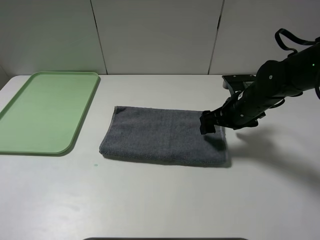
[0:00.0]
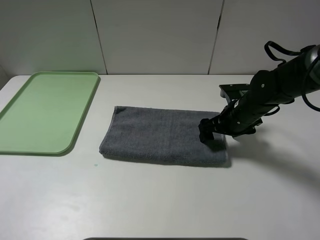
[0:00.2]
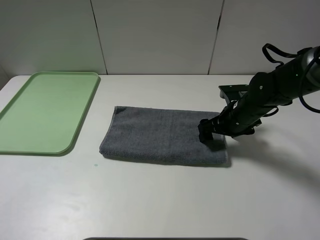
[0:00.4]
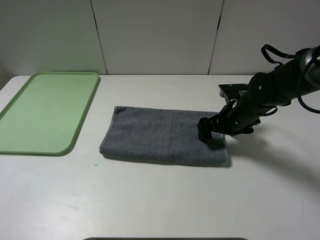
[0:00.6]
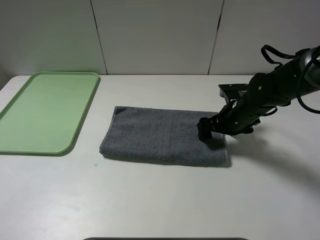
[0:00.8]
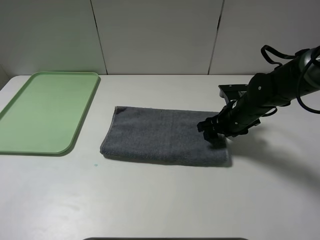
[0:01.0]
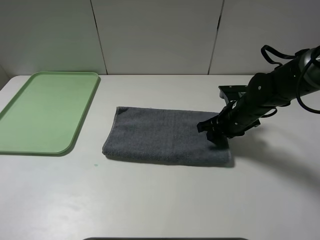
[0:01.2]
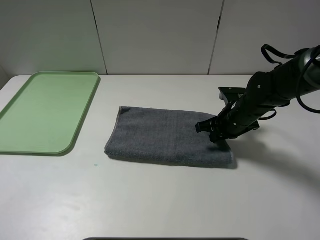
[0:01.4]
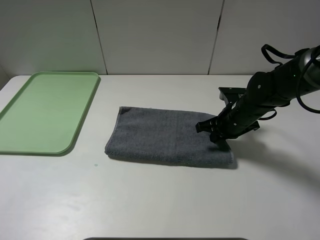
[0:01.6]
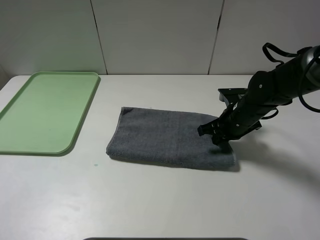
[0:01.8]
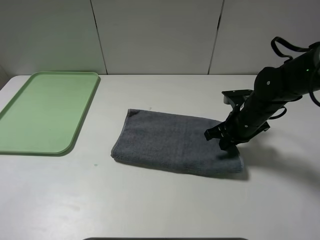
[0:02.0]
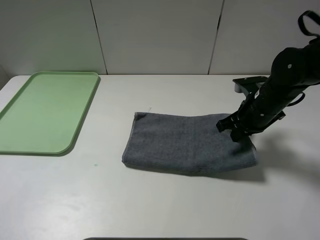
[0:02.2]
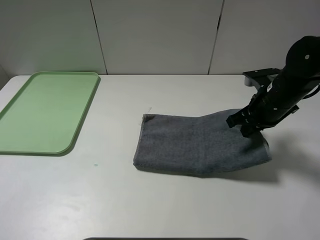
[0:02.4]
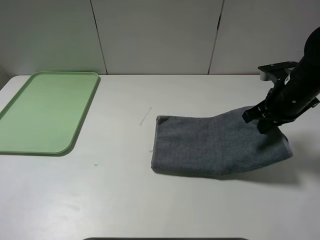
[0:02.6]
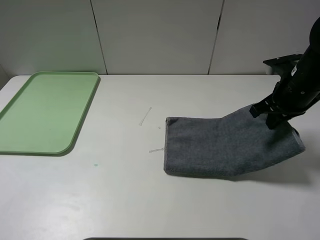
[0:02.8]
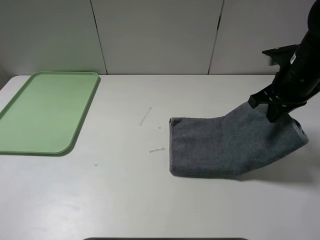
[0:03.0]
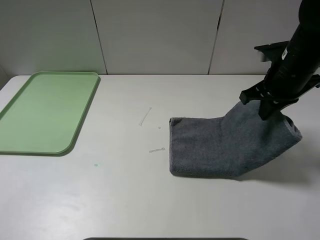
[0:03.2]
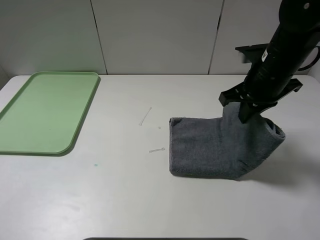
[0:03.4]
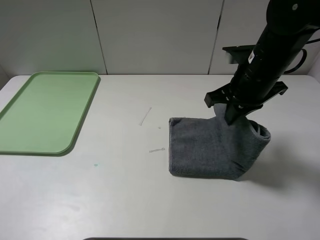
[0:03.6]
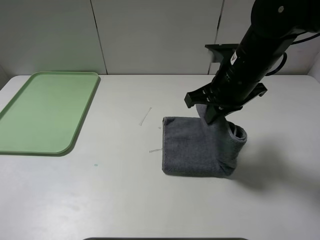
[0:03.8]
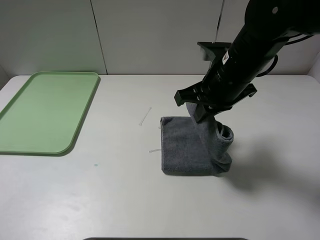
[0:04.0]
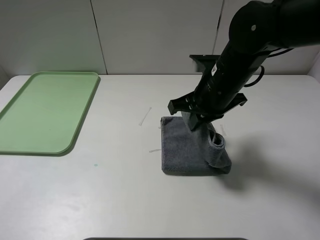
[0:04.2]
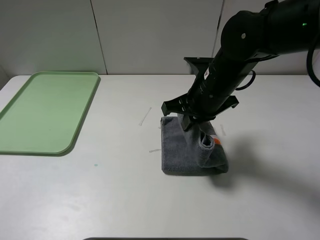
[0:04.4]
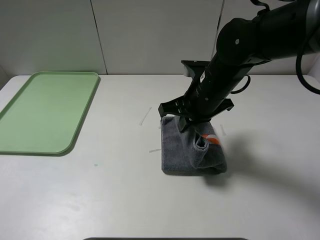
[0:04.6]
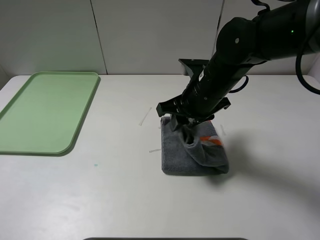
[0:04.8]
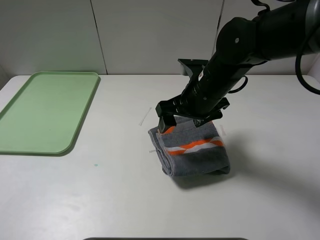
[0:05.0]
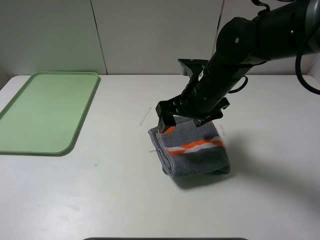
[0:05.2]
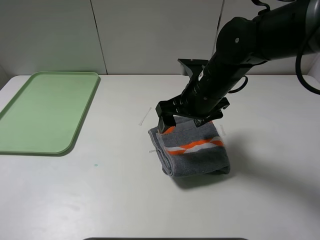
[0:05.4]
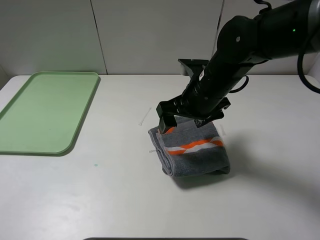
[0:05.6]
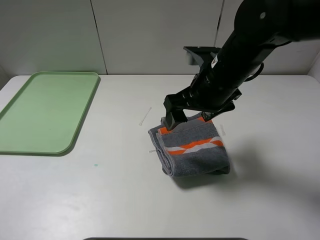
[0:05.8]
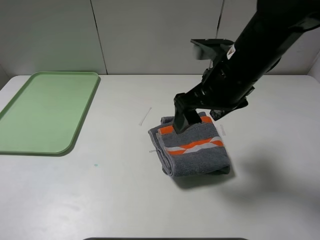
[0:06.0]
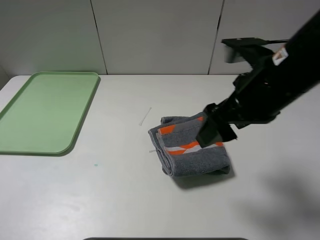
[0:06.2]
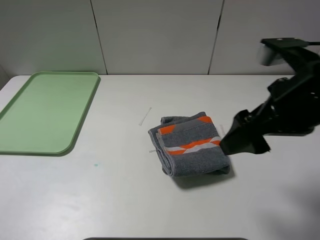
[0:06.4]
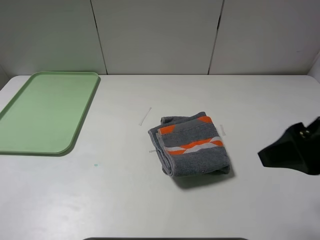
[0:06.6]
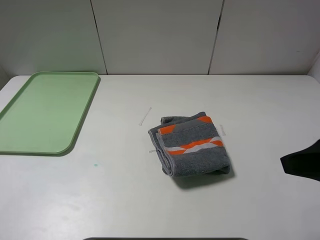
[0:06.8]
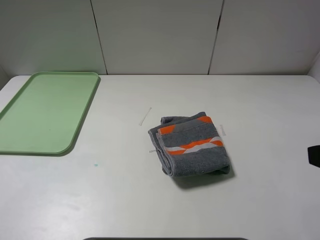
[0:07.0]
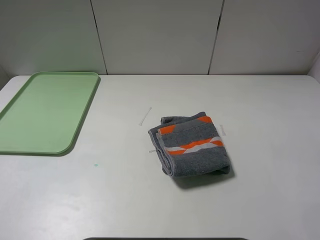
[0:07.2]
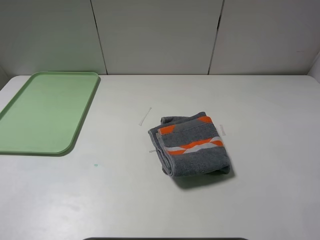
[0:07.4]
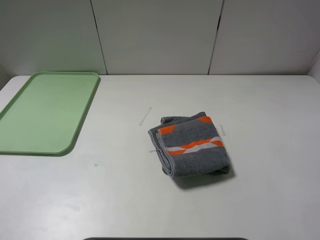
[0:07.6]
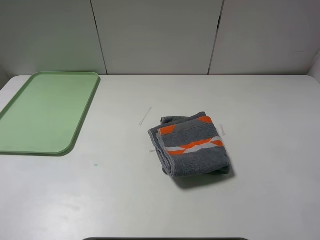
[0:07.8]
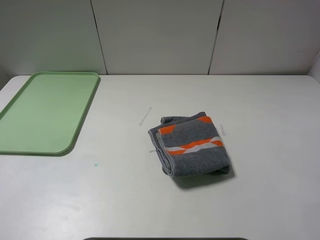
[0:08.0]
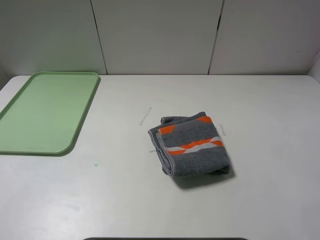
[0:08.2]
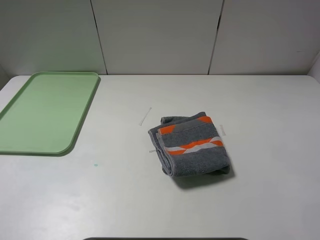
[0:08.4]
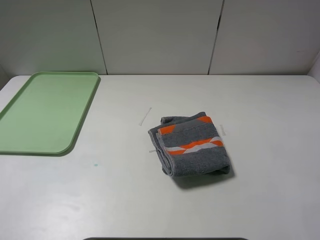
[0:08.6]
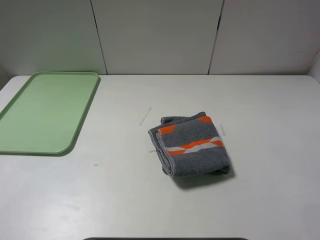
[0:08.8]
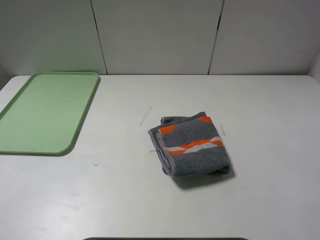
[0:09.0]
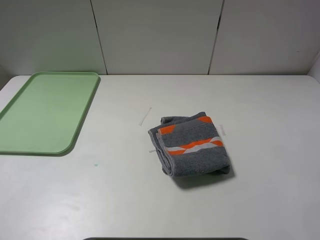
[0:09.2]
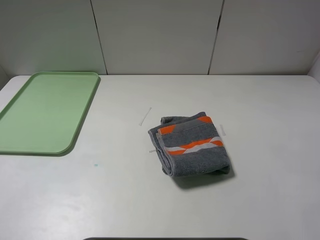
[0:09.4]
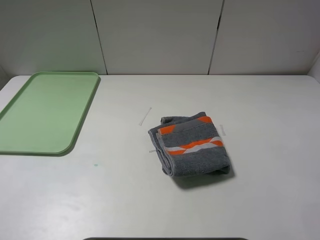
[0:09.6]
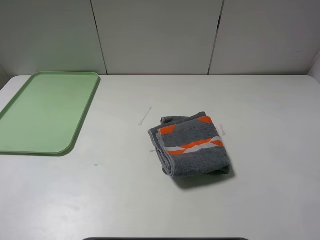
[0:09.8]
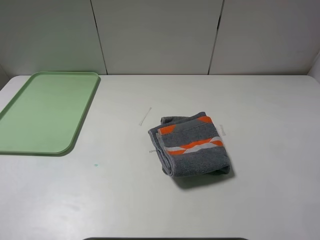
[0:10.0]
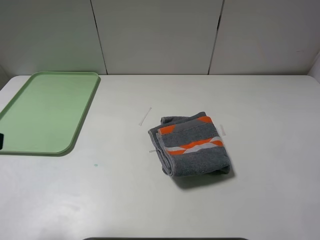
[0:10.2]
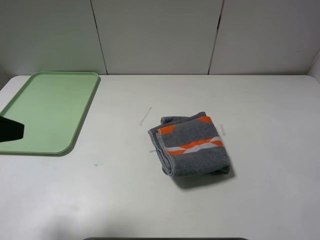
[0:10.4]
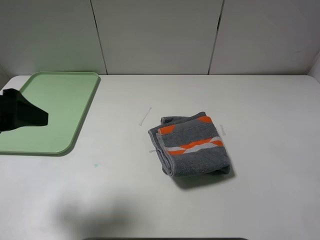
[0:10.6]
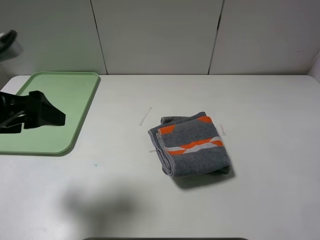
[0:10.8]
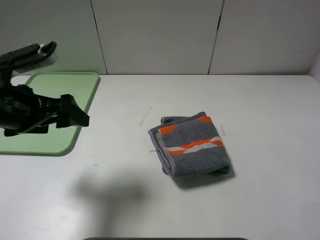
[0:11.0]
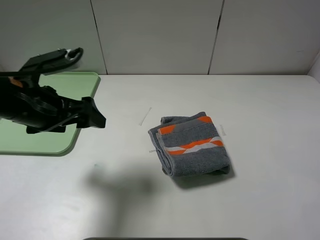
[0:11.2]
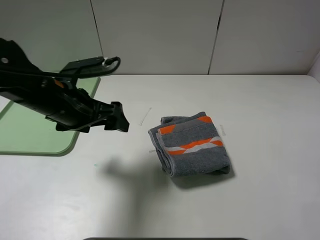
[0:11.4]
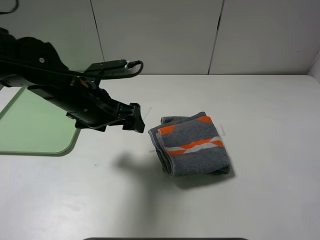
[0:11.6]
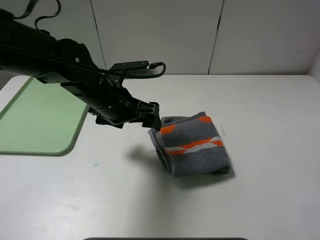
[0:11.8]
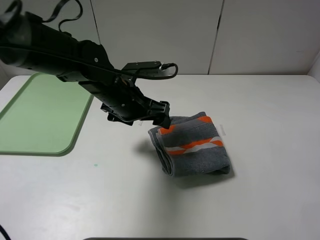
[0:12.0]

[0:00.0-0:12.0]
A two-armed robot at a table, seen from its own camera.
Step, 0:00.0 to 0:04.8: Fold the grey towel from right to left with right gripper.
0:00.0 to 0:01.6: The right gripper closes.
0:01.6 to 0:03.0: The right gripper moves upward and to the right, approximately 15 cm.
0:03.0 to 0:04.4: The right gripper shifts roughly 15 cm to the left.
0:04.4 to 0:06.0: The right gripper goes approximately 5 cm upward, and opens up.
0:06.0 to 0:07.6: The right gripper moves backward and to the right, roughly 30 cm.
0:07.6 to 0:09.0: Both grippers stay about where they are.
0:09.0 to 0:10.4: The left gripper is displaced forward by approximately 10 cm.
0:10.4 to 0:12.0: The left gripper is displaced to the right, forward and downward by some 30 cm.

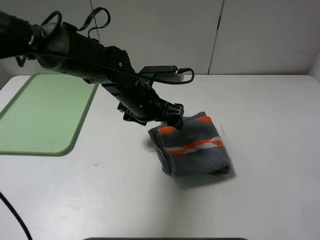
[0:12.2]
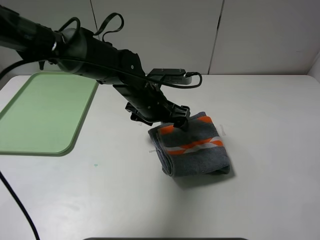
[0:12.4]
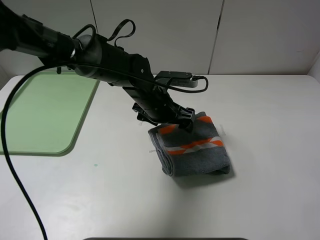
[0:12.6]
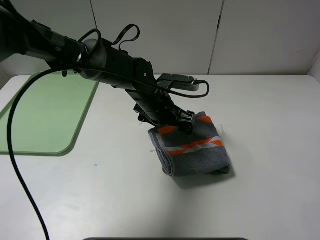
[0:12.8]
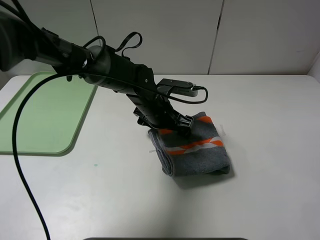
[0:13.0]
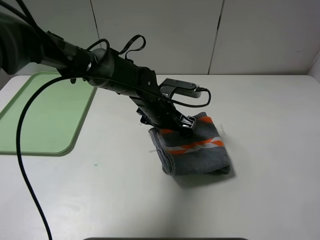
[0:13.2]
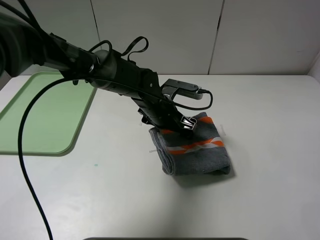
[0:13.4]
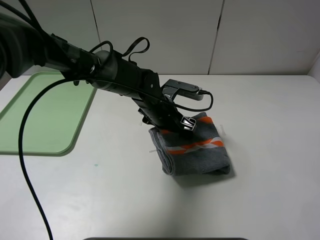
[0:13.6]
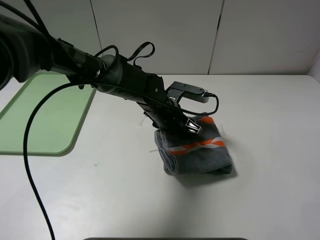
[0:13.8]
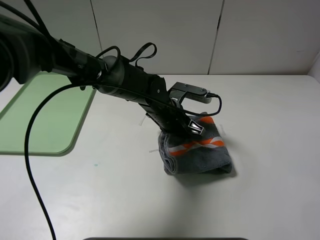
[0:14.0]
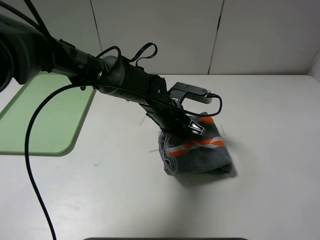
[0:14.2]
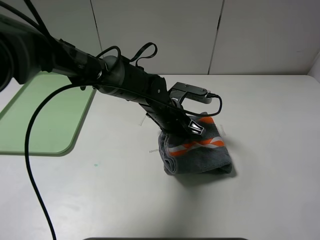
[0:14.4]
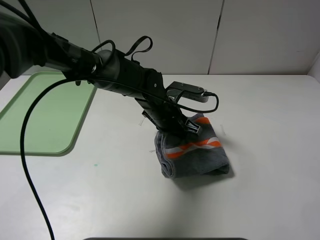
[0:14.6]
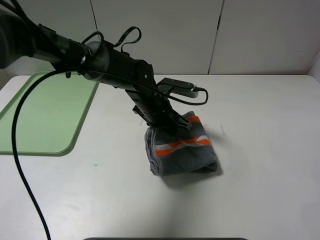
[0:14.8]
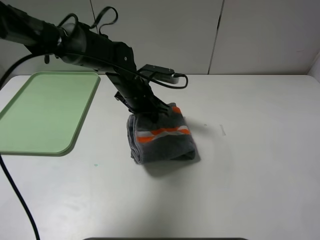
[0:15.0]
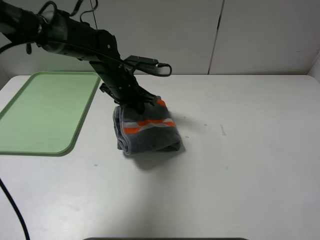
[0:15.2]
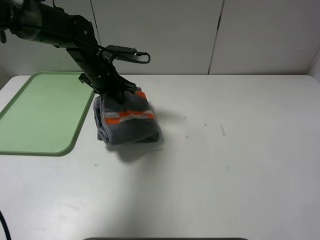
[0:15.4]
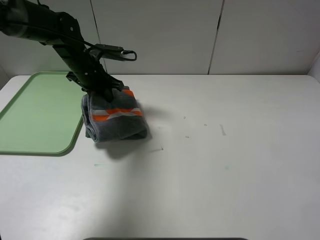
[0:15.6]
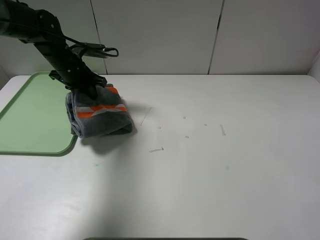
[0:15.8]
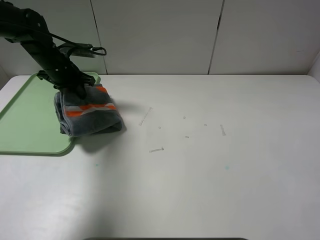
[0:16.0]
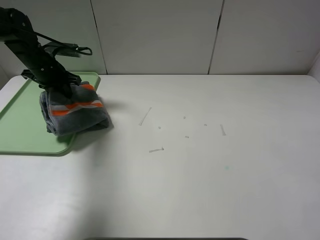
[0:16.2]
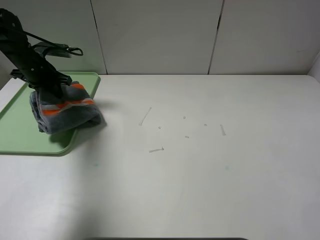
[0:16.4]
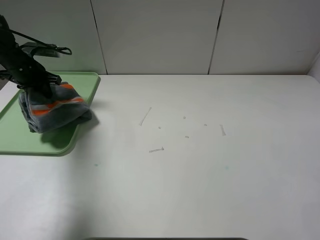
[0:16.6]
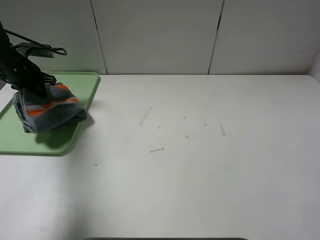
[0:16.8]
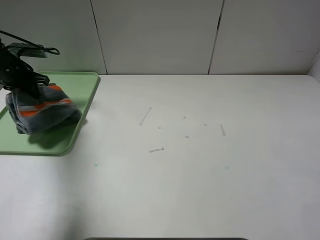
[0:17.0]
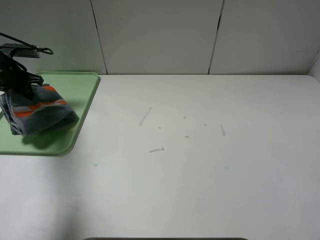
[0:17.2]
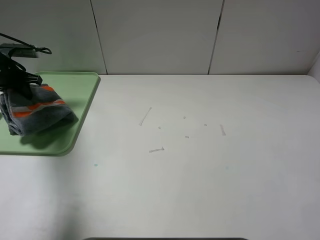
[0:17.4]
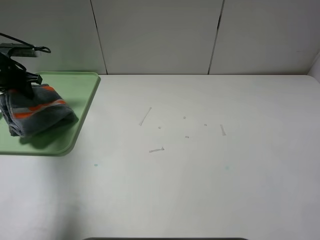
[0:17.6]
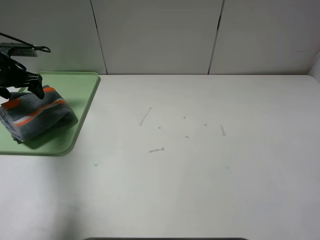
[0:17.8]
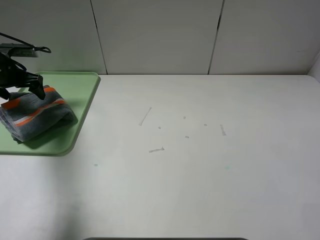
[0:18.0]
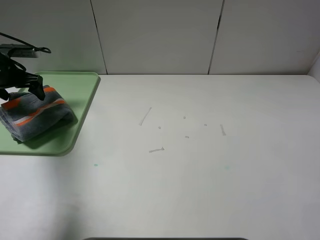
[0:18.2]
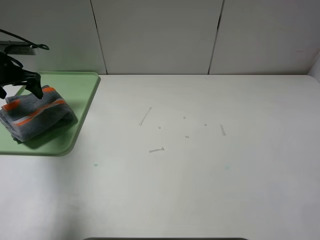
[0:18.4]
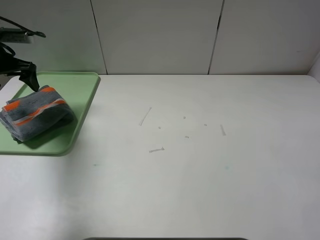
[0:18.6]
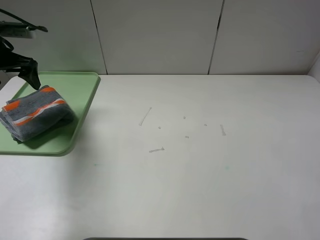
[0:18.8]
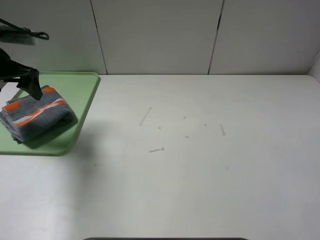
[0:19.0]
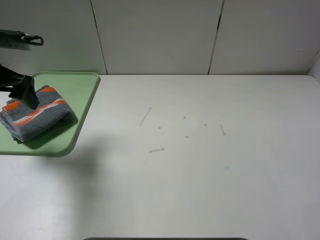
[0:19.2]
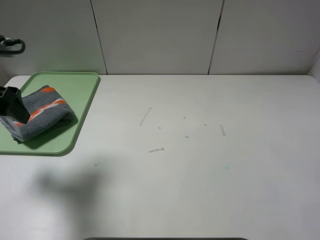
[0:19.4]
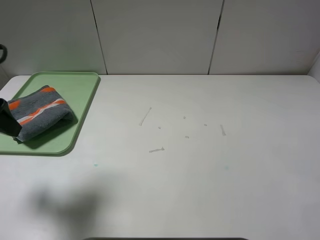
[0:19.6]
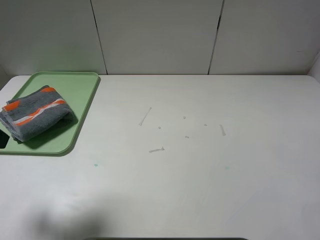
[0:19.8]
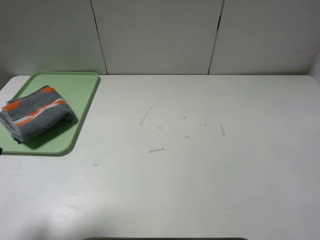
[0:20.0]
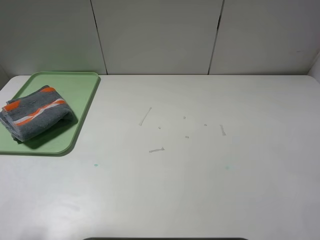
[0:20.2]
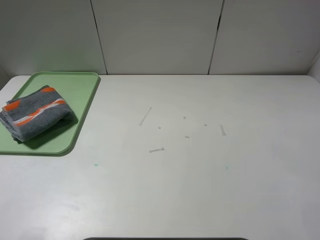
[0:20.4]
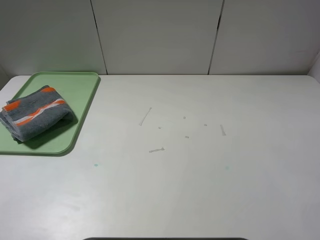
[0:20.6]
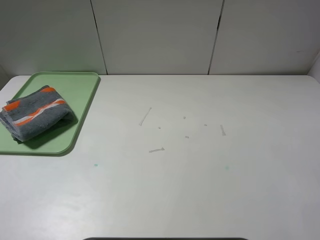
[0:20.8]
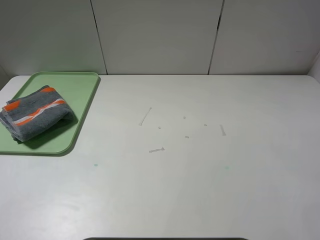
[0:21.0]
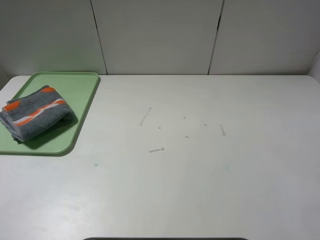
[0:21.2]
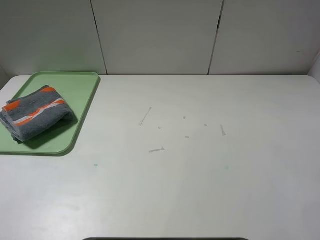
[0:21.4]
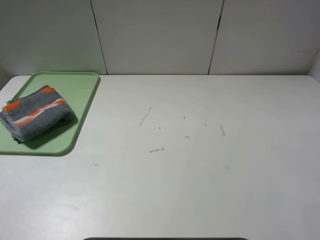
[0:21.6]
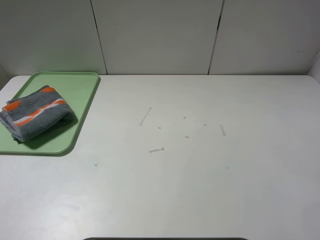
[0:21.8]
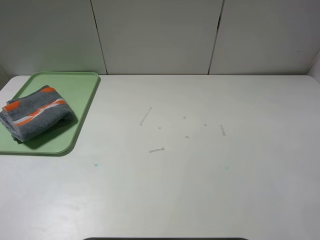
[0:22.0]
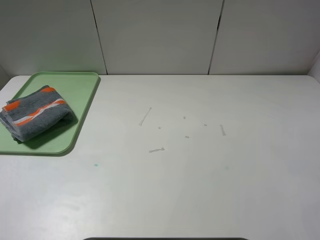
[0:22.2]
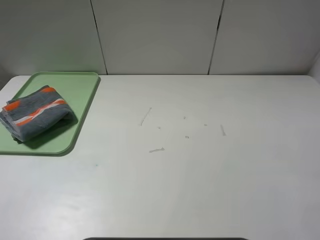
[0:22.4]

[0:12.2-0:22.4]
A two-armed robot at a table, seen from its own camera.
Step, 0:12.2 to 0:18.6: Place the folded grey towel on the tray with the left gripper.
0:12.2 to 0:13.6: The left gripper moves downward, approximately 5 cm.
0:13.6 to 0:15.2: The left gripper is displaced to the left, upward and forward by approximately 15 cm, and closes.
0:15.2 to 0:16.6: The left gripper goes approximately 25 cm to the left.
0:16.6 to 0:18.0: The left gripper opens its fingers.
0:18.0 to 0:19.4: The left gripper goes about 25 cm backward, upward and to the right.
0:19.4 to 0:21.0: The left gripper moves backward, about 20 cm.
